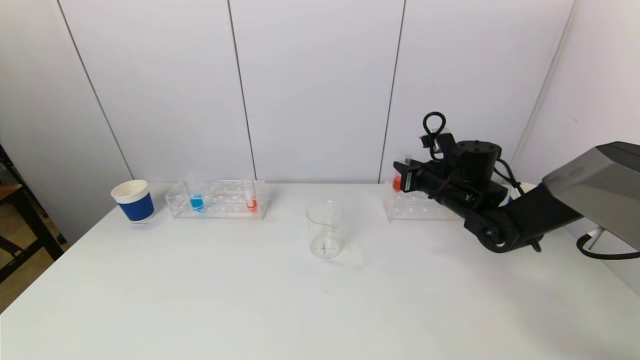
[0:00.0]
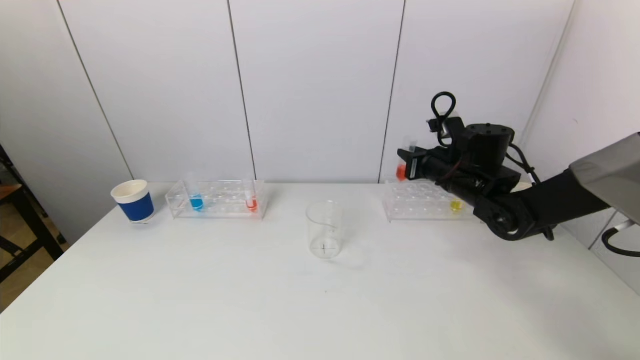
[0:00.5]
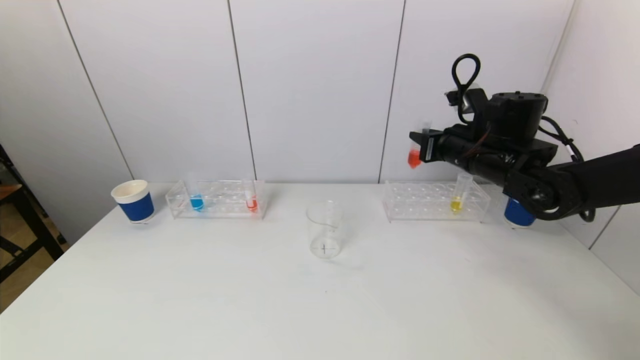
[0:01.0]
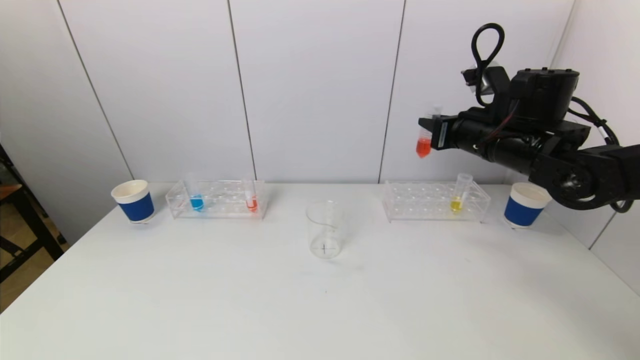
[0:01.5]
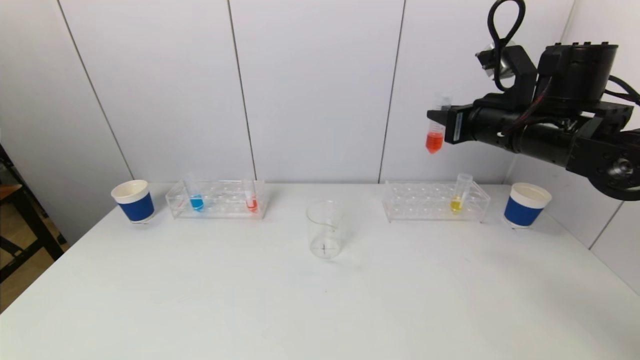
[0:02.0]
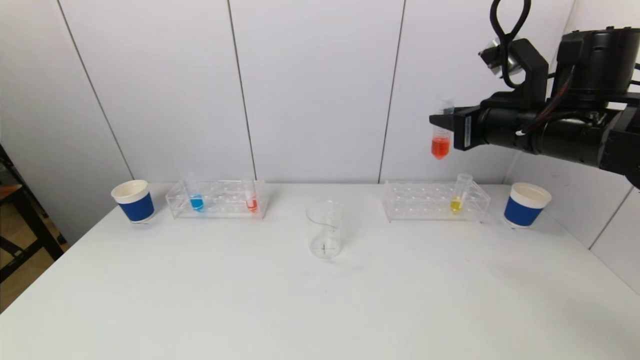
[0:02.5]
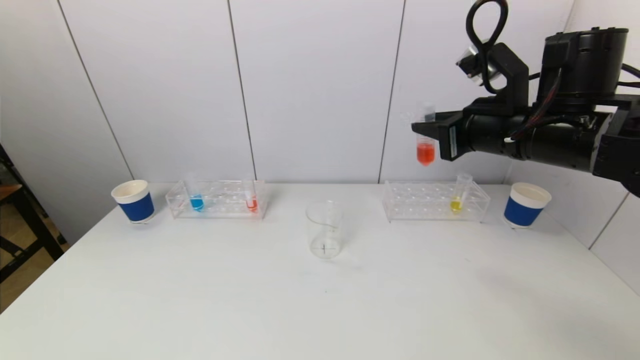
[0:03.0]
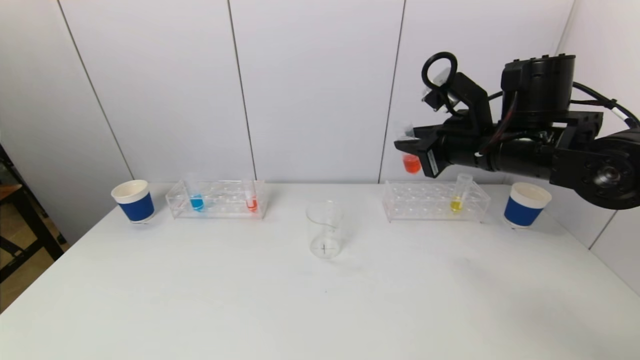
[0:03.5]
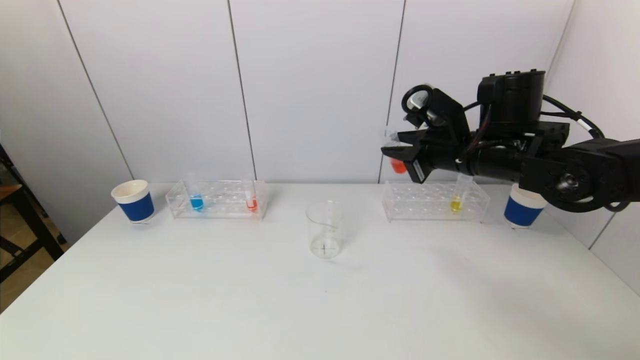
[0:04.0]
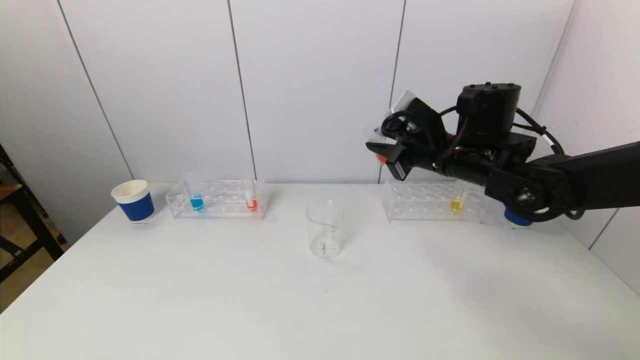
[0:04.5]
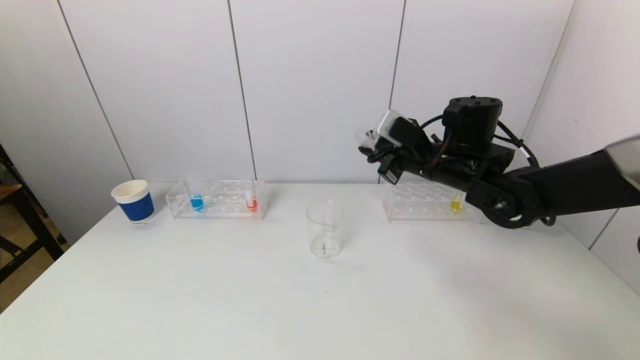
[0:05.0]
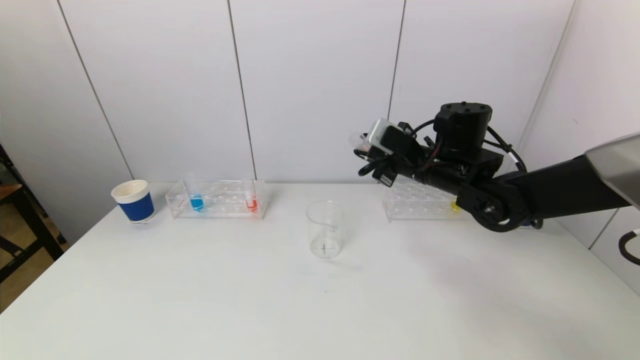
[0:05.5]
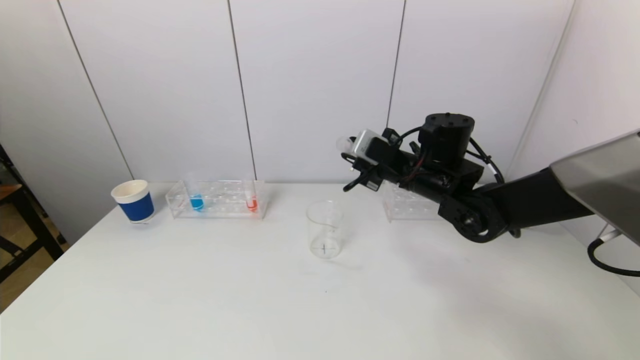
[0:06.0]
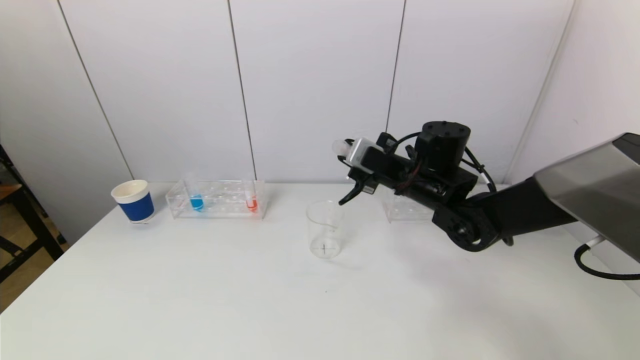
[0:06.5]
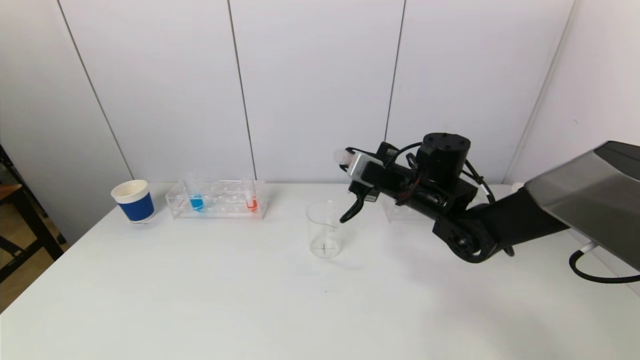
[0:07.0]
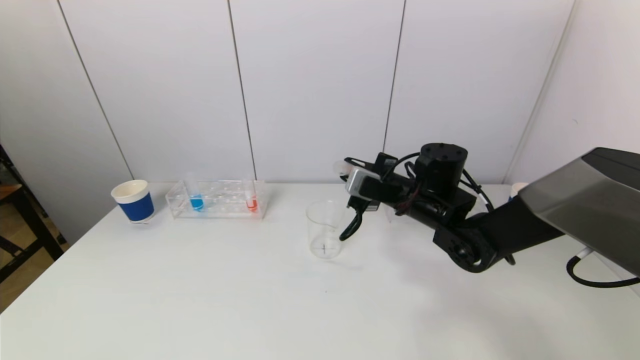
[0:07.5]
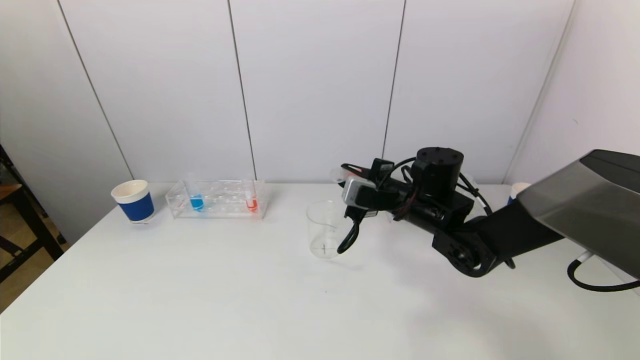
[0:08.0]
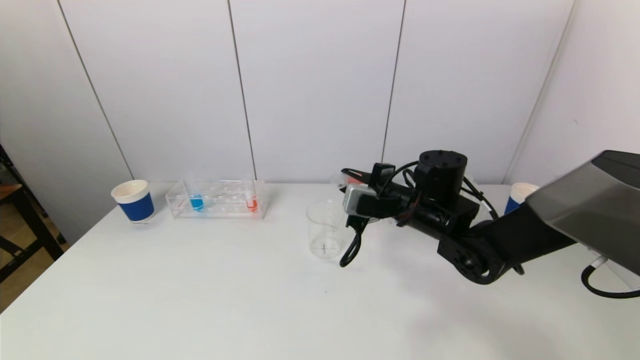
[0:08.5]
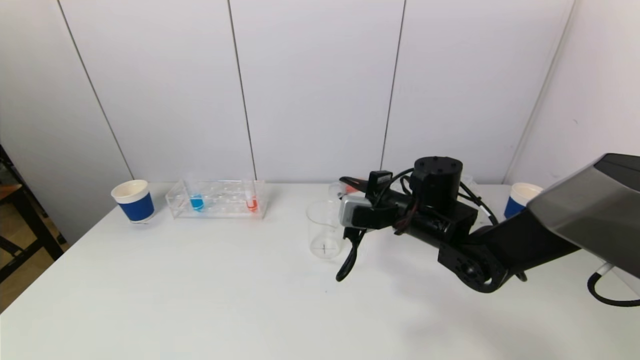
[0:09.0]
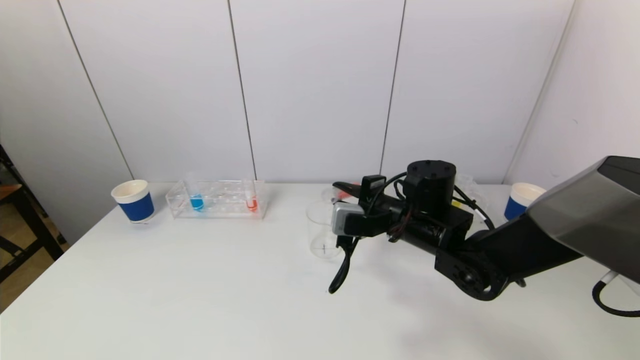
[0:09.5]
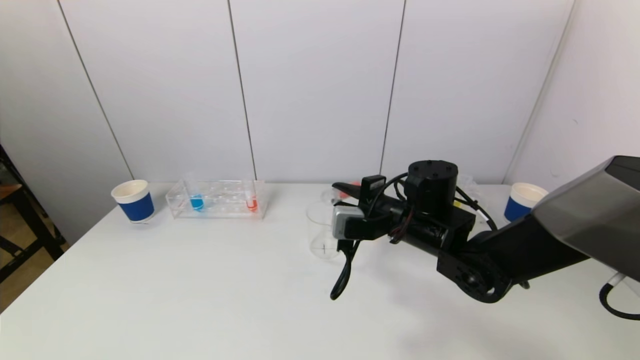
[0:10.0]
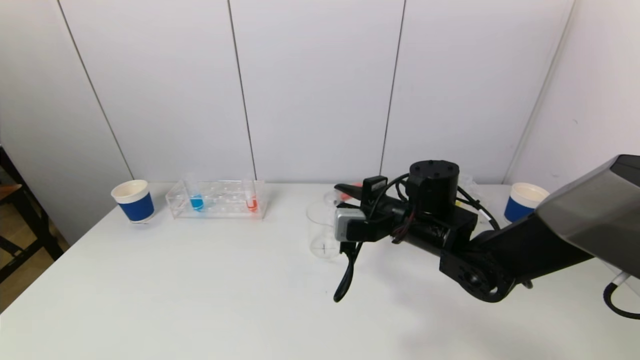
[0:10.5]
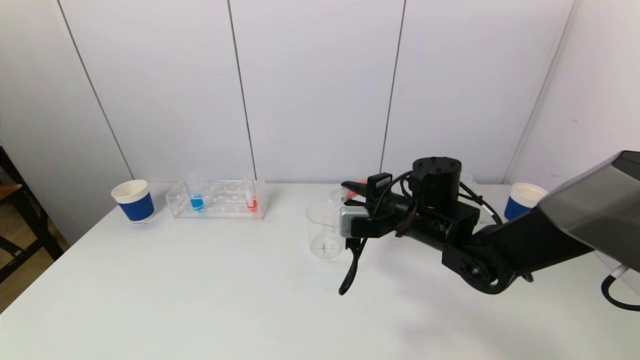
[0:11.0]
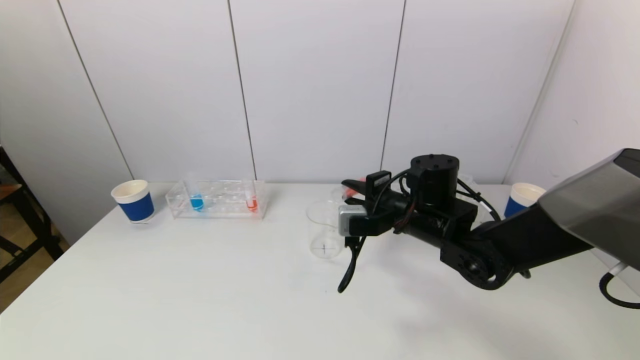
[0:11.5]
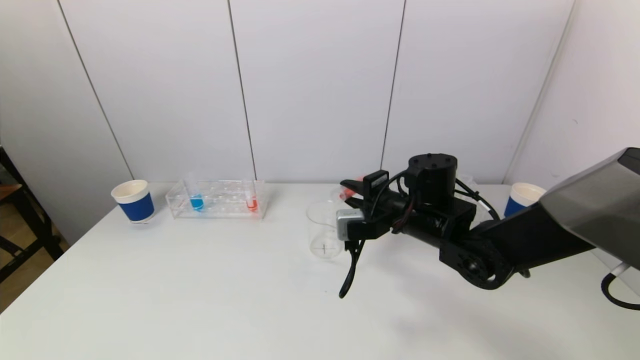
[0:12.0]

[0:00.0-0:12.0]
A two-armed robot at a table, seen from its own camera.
Task of the whole recording: pick up a test tube with pigment on left test tube rack and a test tube with pigment on right test tube rack by grippers and pour them into the beaker.
0:00.0 to 0:02.0: The right gripper is displaced upward and backward by roughly 15 cm.
0:02.0 to 0:04.0: The right gripper moves approximately 5 cm.
0:04.0 to 0:06.0: The right gripper moves downward and to the left, approximately 10 cm.
0:06.0 to 0:08.0: The grippers stay close to where they were, moving slightly.
0:08.0 to 0:10.0: The grippers make only small movements.
0:10.0 to 0:12.0: The grippers move only a little.

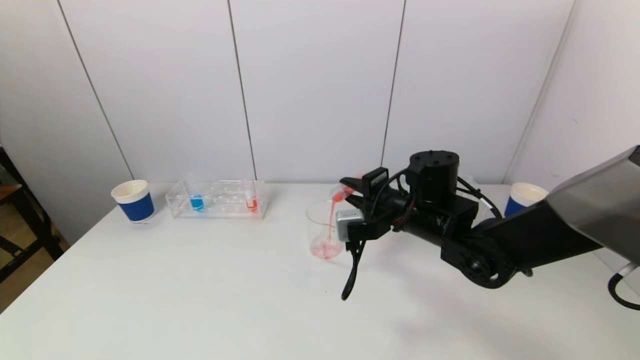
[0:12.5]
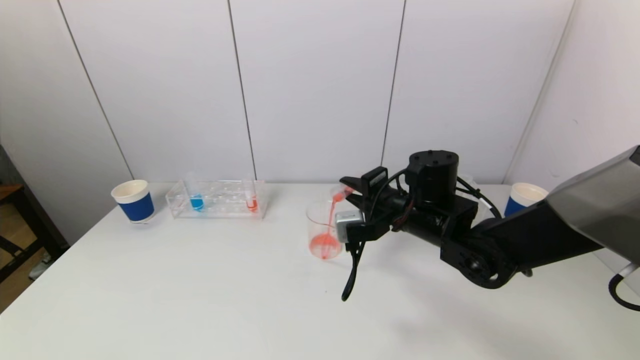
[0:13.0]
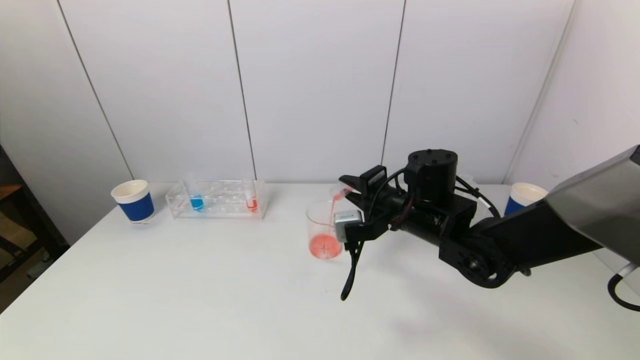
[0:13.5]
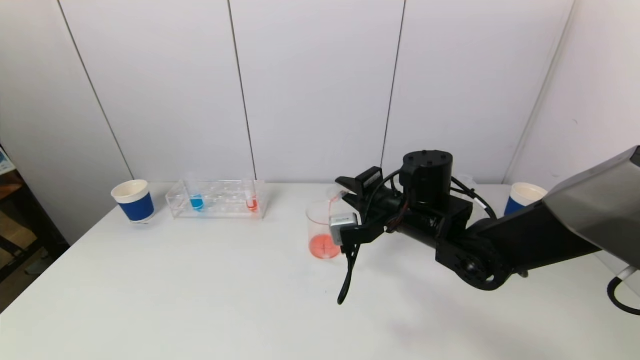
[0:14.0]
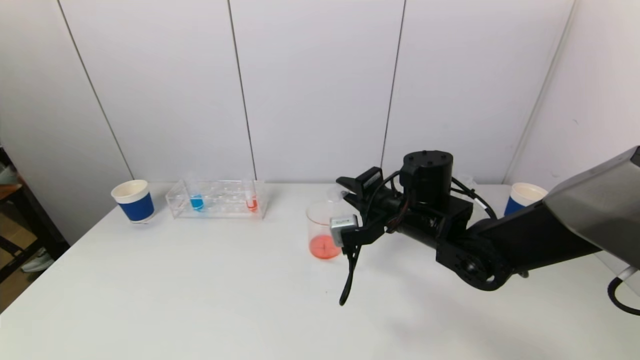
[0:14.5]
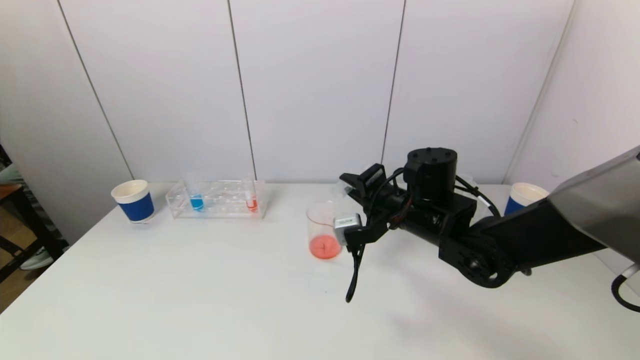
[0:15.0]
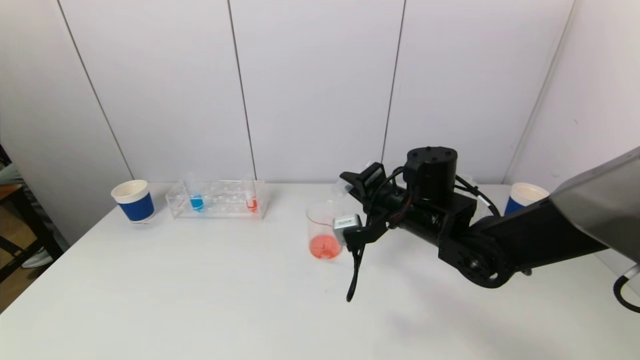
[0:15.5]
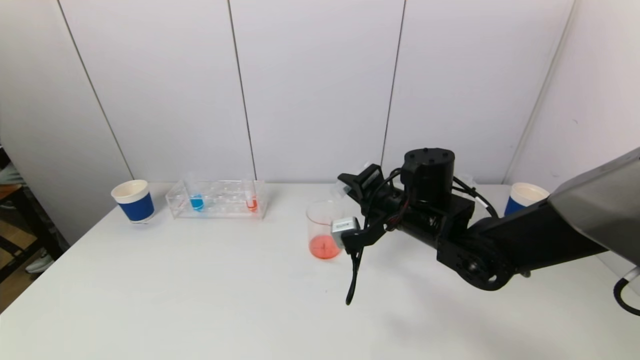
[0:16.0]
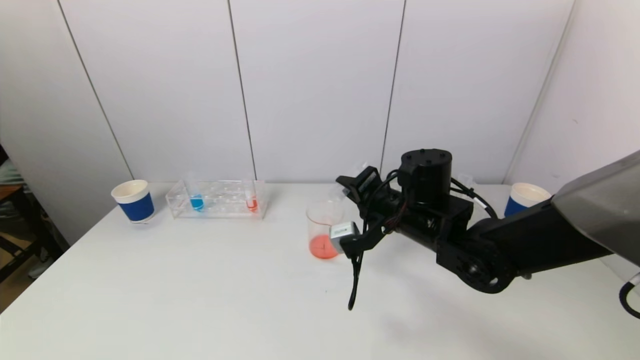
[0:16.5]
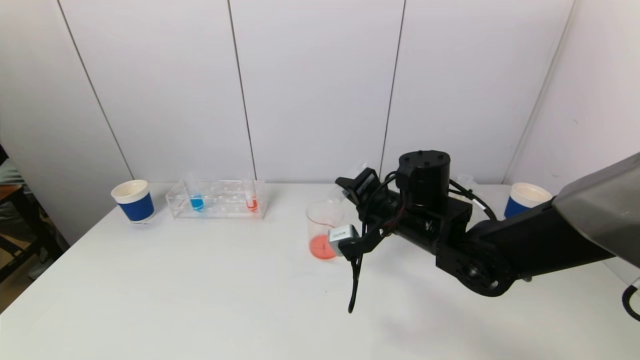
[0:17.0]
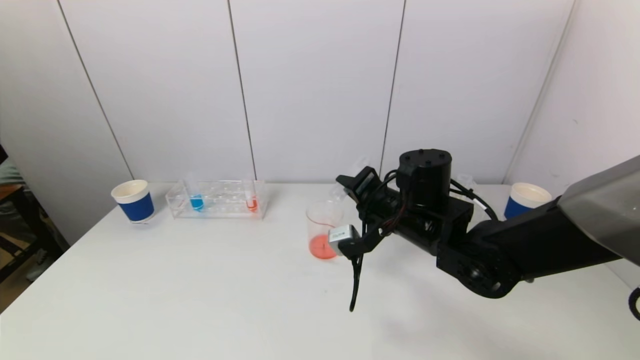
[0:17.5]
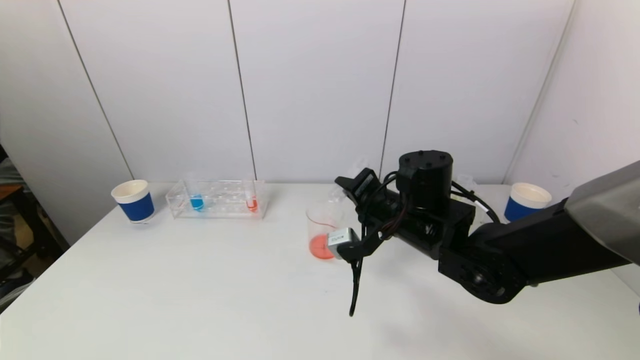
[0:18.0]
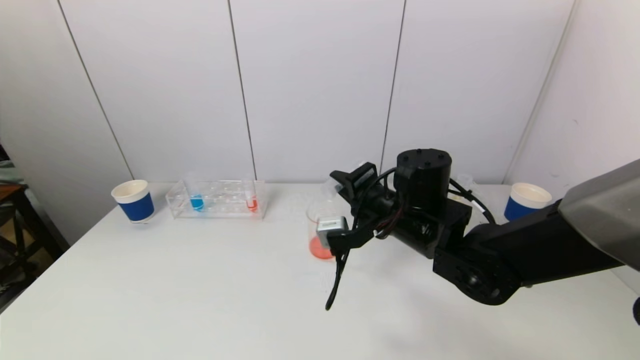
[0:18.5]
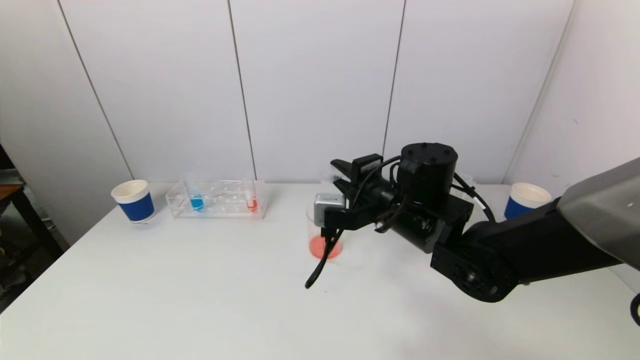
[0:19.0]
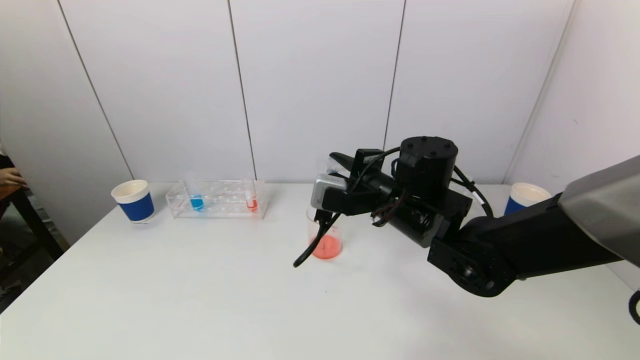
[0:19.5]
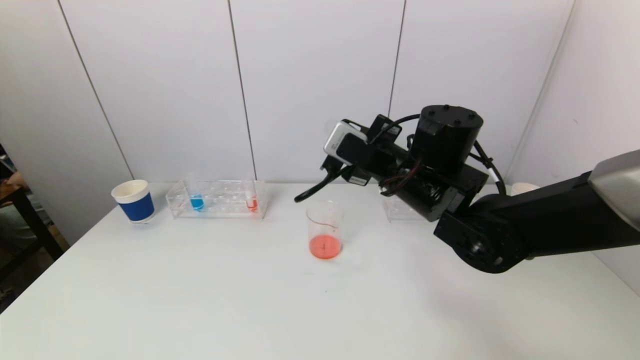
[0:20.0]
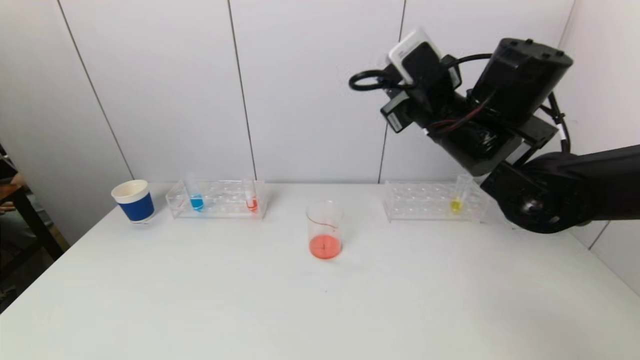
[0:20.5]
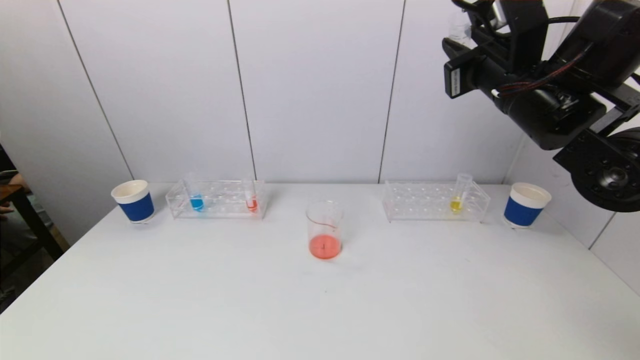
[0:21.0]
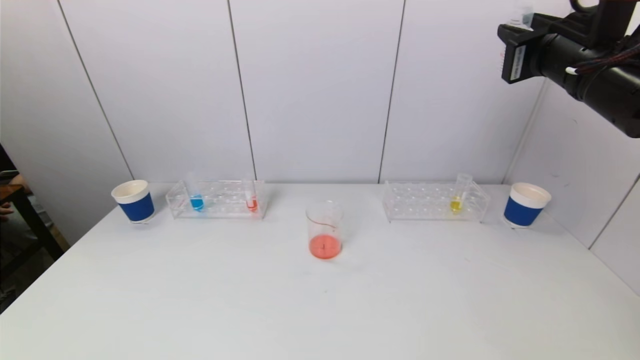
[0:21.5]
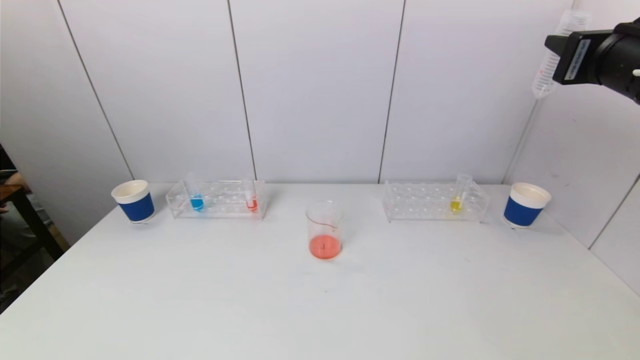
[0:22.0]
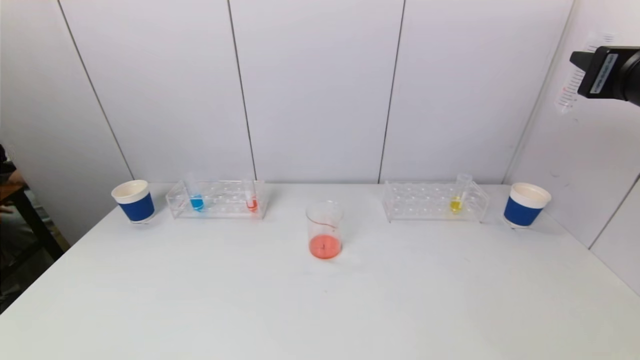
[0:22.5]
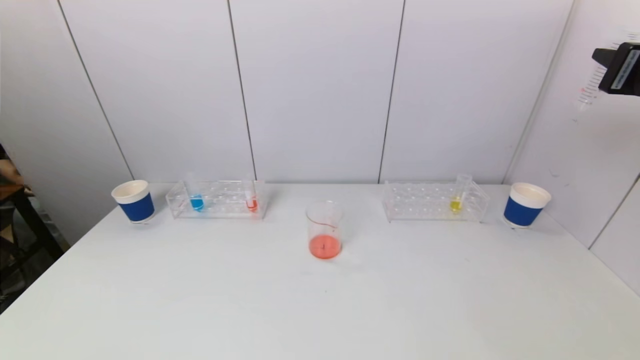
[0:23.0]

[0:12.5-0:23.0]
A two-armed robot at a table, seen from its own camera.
Task of the whole recording: pick up a test tube with pigment on left test tube rack and a test tube with pigment on right test tube rack by grippers and pour them into the beaker.
Step, 0:12.5 to 0:18.5: Pour the red reagent into the graduated cylinder with the right gripper.
0:12.5 to 0:14.5: The grippers make only small movements.
0:14.5 to 0:16.5: The grippers stay close to where they were, moving slightly.
0:19.0 to 0:21.0: The right gripper heads upward and to the right, covering roughly 20 cm.
0:21.0 to 0:23.0: The right gripper travels to the right and backward by approximately 15 cm.
